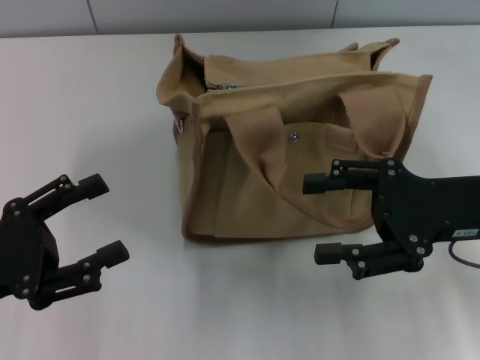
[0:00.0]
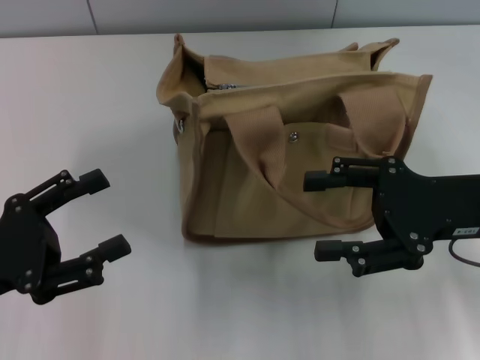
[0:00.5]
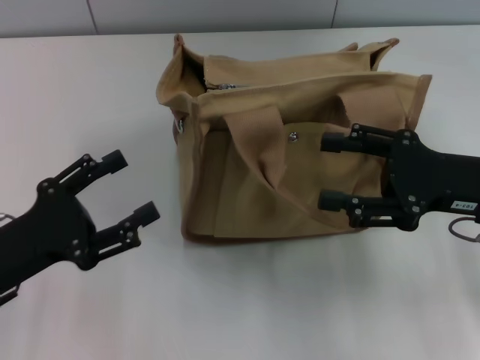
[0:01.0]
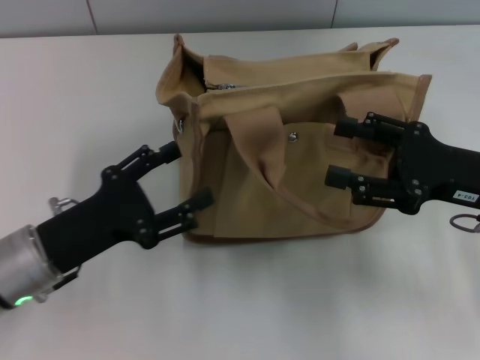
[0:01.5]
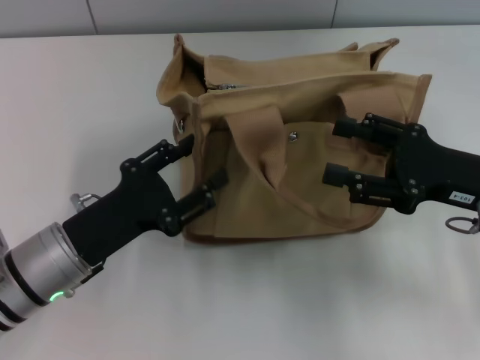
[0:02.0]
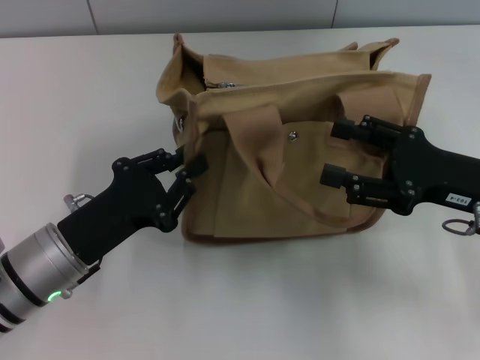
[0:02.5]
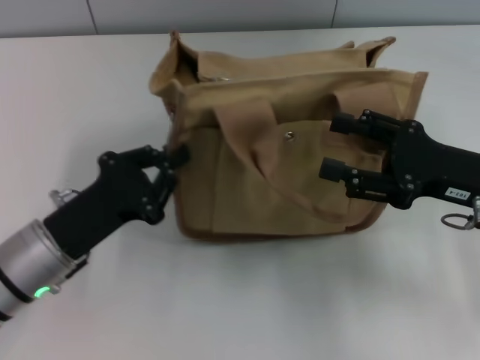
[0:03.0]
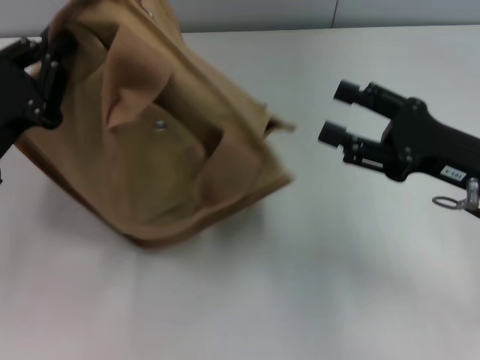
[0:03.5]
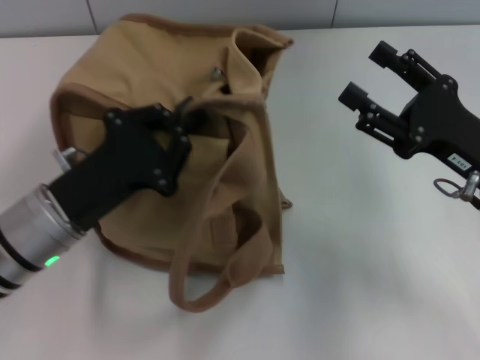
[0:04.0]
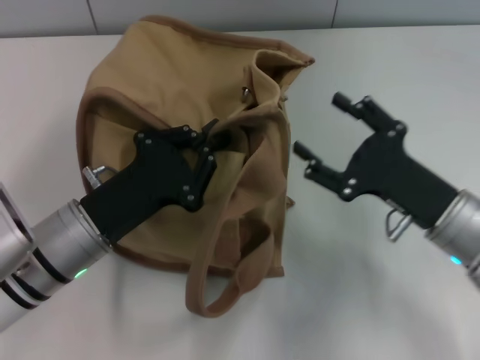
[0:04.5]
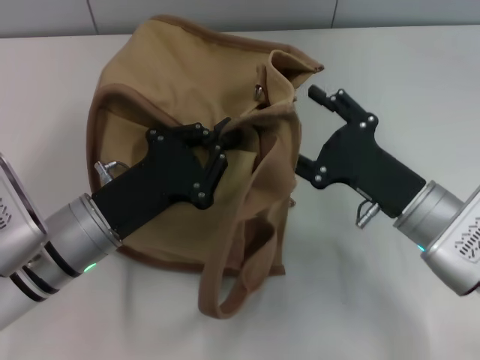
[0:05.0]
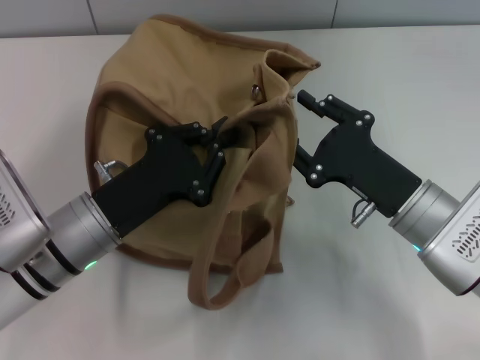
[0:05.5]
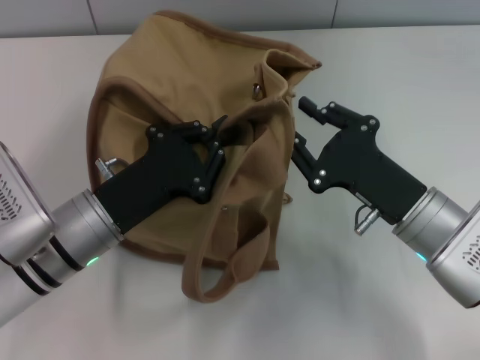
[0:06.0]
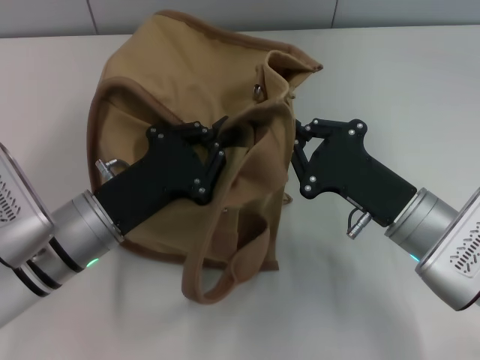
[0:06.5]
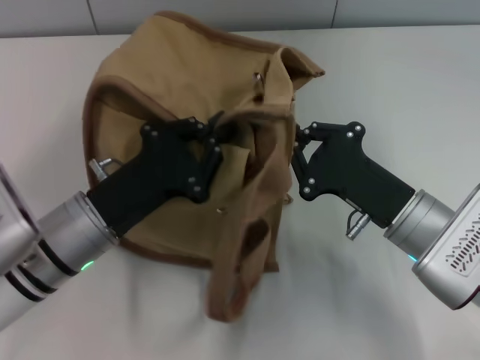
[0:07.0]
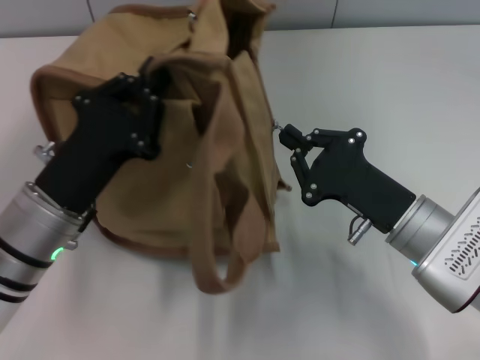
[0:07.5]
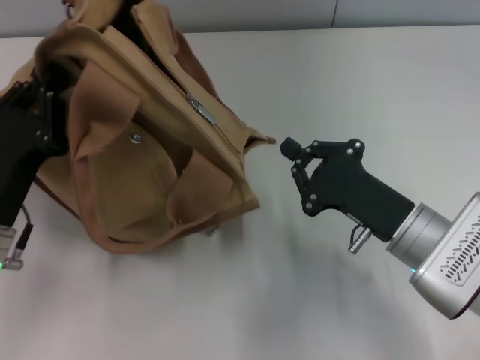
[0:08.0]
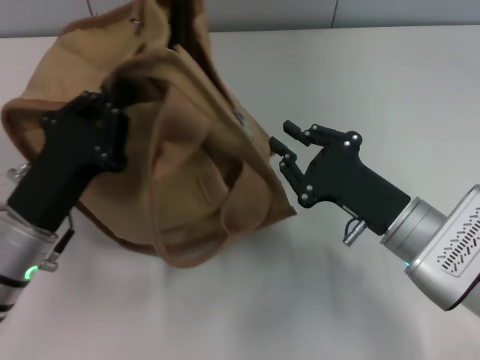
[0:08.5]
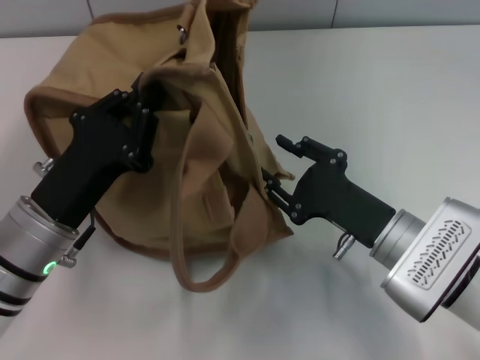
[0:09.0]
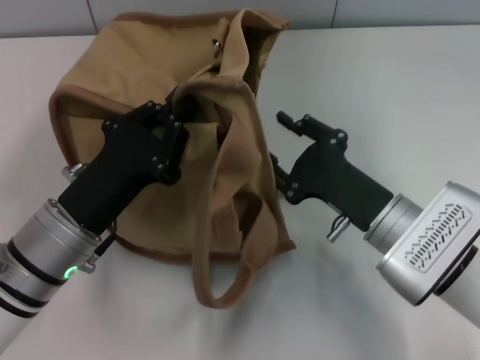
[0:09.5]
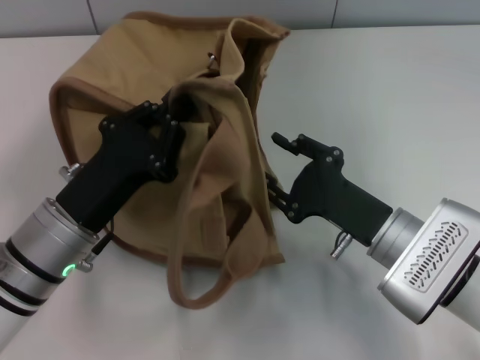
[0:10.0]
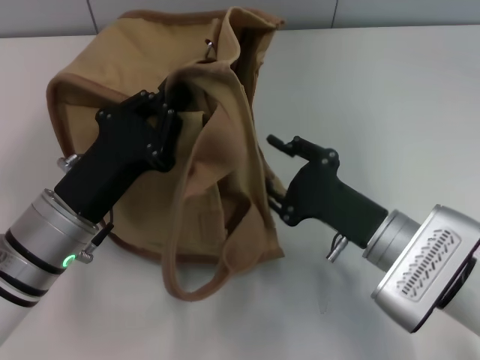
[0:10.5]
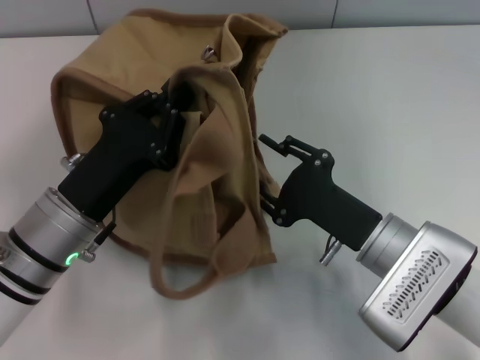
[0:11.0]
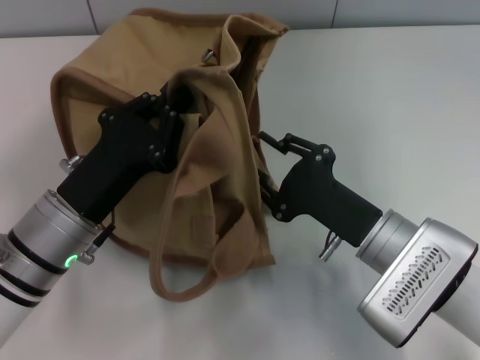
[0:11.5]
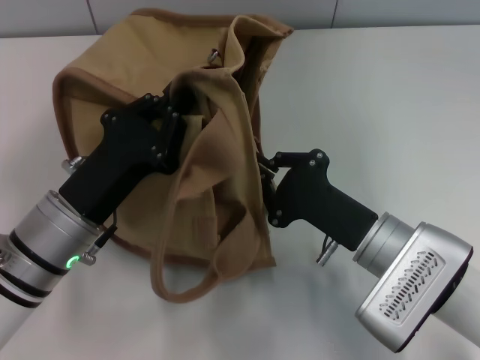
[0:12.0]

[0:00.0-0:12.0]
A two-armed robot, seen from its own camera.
0:00.0 to 0:02.0: The left gripper goes roughly 10 cm to the right.
0:02.0 to 0:04.0: The left gripper closes its fingers.
0:04.0 to 0:06.0: The right gripper travels to the left by roughly 5 cm, and closes up.
0:06.0 to 0:08.0: The left gripper heads to the left, covering approximately 5 cm; the right gripper closes its fingers.
0:08.0 to 0:10.0: The right gripper opens. The left gripper moves to the right, some 5 cm.
0:10.0 to 0:12.0: The right gripper closes its fingers.

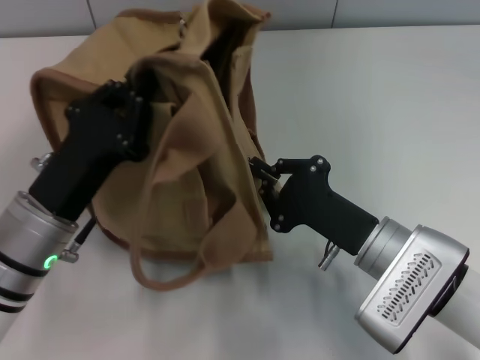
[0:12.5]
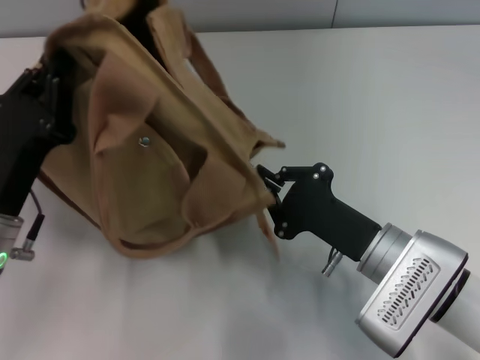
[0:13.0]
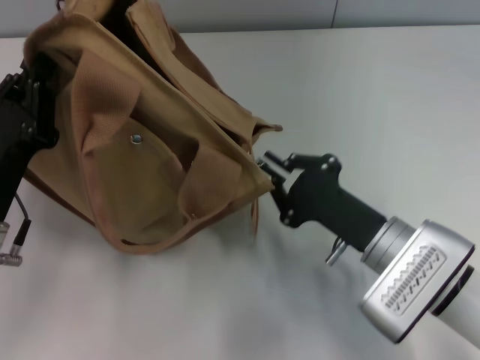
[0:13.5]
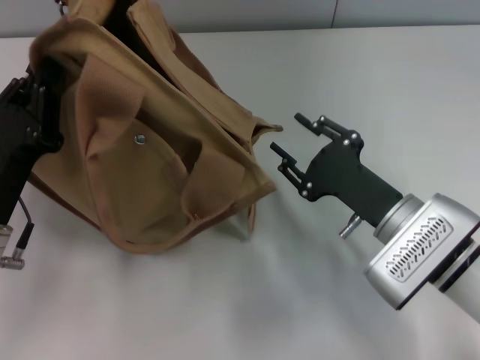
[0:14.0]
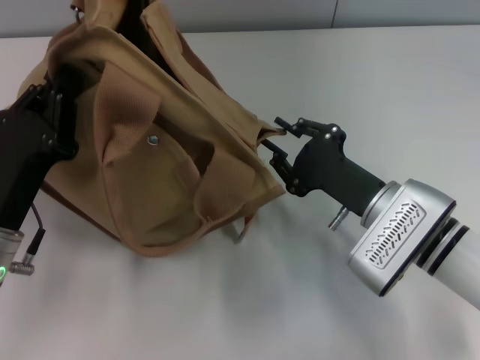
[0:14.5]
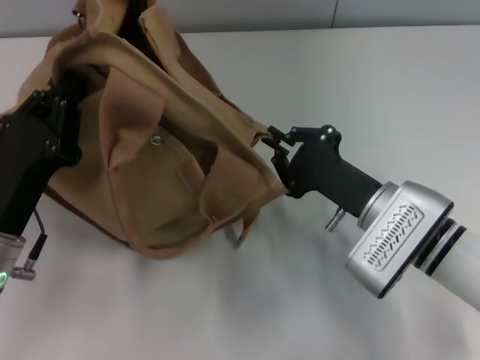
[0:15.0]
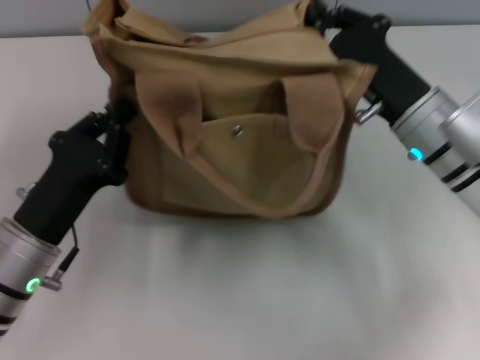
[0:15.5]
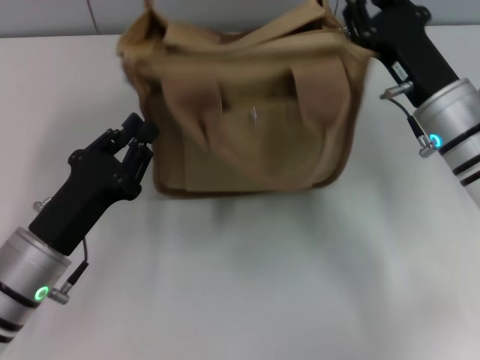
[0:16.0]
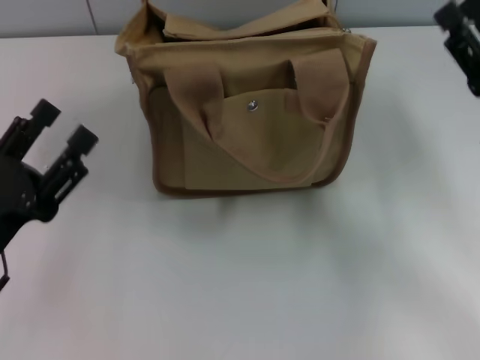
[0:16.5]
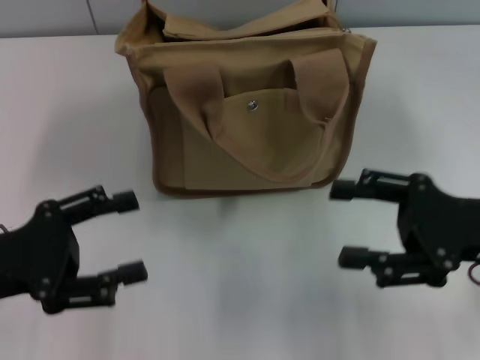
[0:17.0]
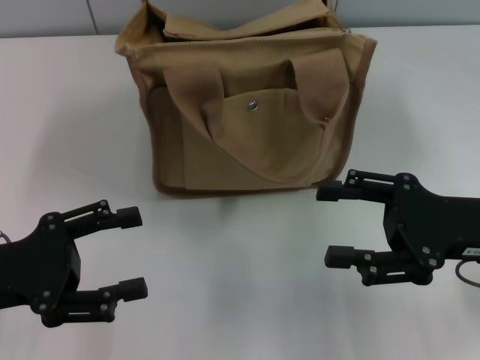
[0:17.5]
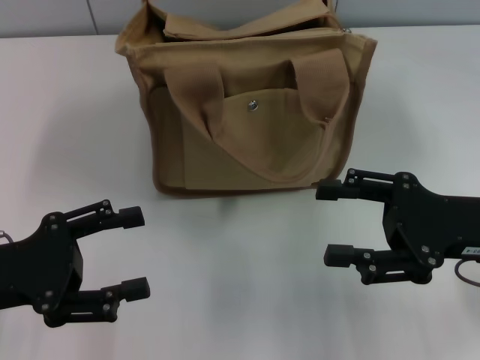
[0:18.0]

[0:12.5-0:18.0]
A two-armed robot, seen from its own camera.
Step, 0:14.0 to 0:16.0: Grab the bag with your left hand.
0:12.5 to 0:14.5: The right gripper opens up.
0:14.5 to 0:16.0: The right gripper is displaced upward and forward by approximately 10 cm, and closes up.
0:16.0 to 0:18.0: The left gripper travels to the left and upward by some 10 cm, and opens its fingers. Meanwhile the right gripper heads backward and to the right, covering roughly 10 cm, and opens.
